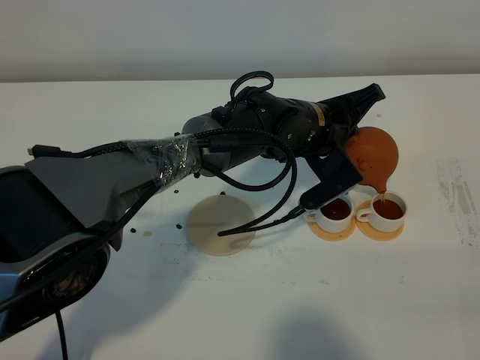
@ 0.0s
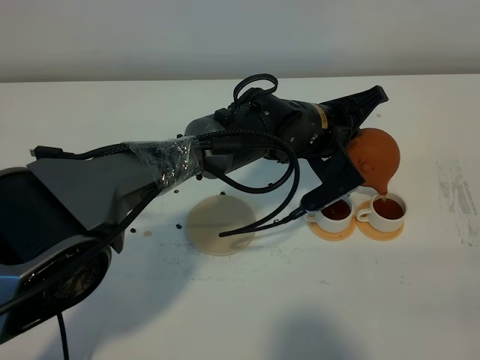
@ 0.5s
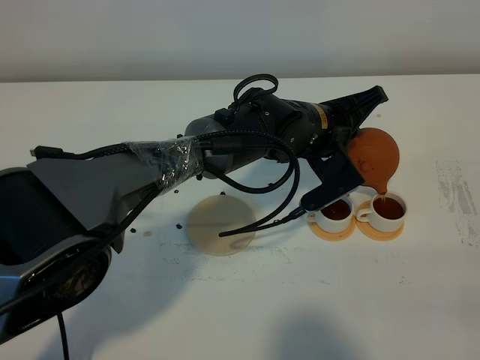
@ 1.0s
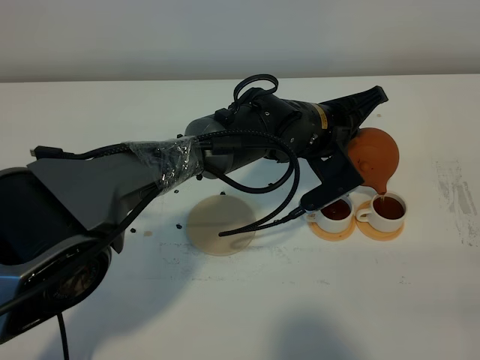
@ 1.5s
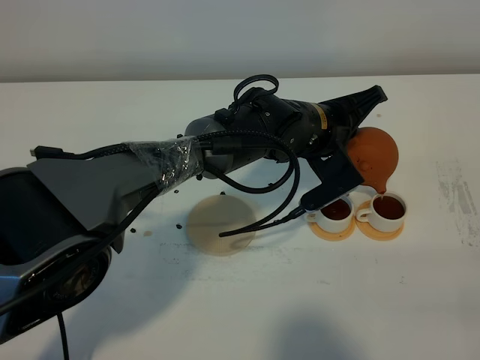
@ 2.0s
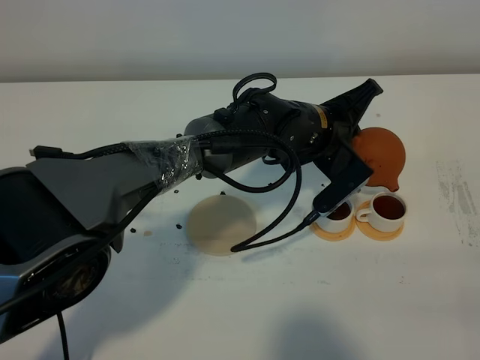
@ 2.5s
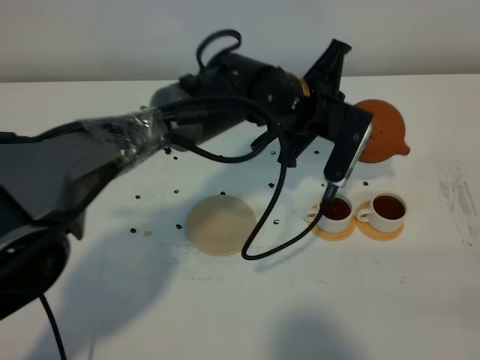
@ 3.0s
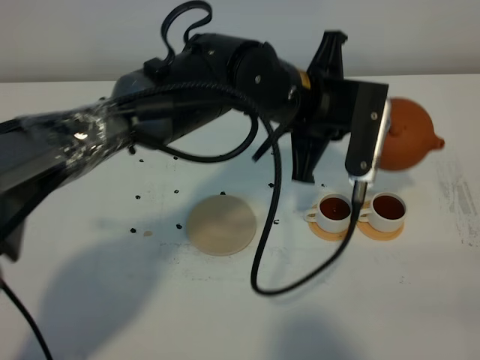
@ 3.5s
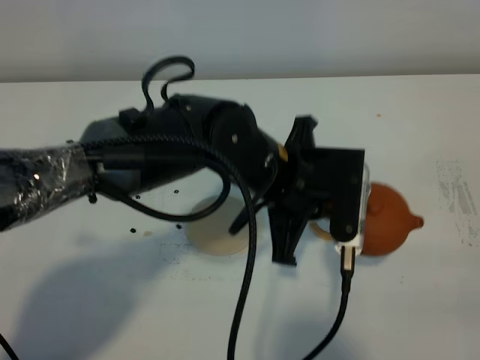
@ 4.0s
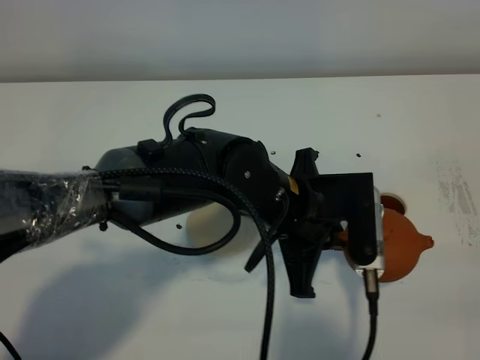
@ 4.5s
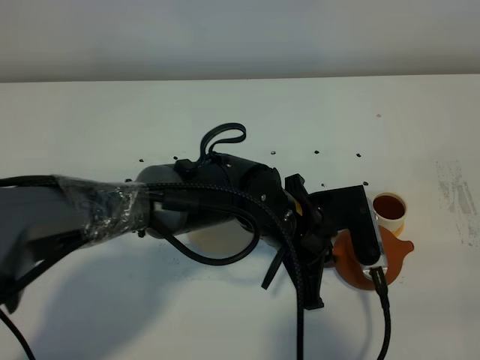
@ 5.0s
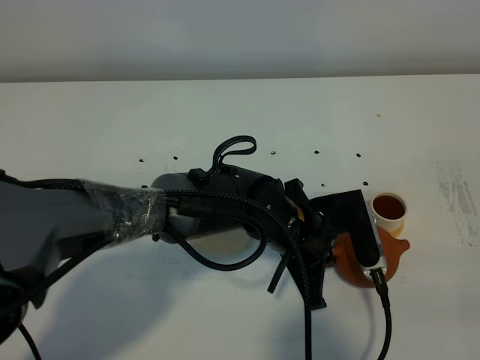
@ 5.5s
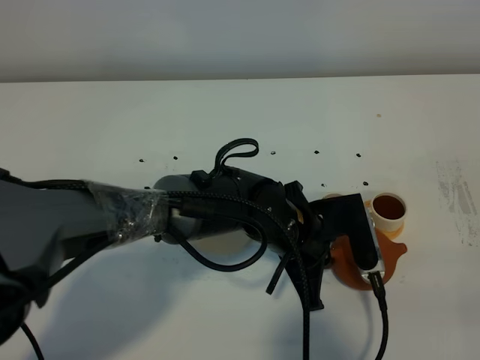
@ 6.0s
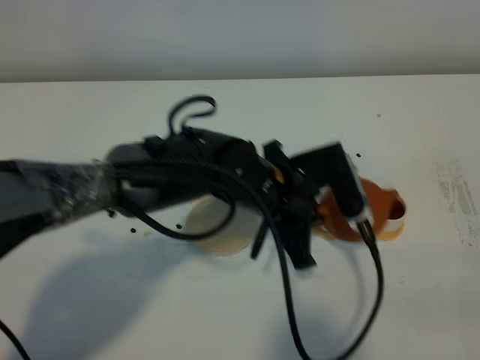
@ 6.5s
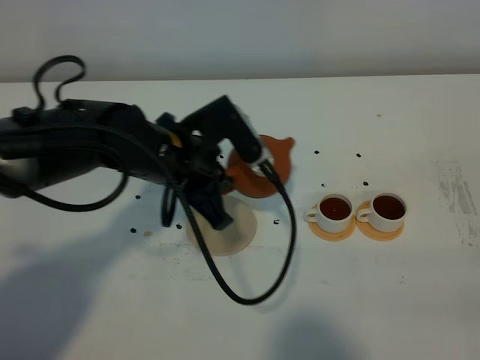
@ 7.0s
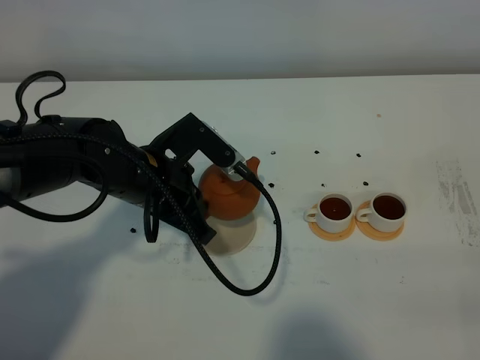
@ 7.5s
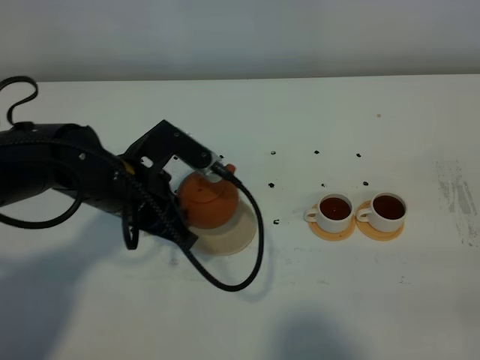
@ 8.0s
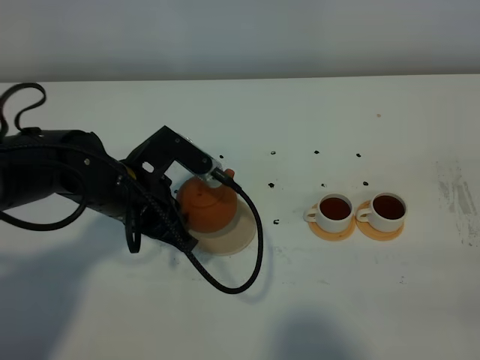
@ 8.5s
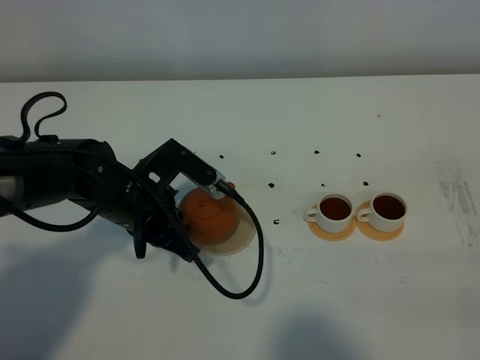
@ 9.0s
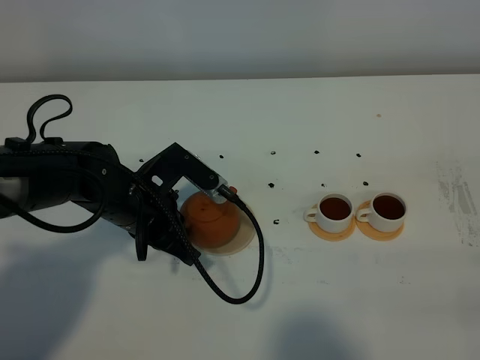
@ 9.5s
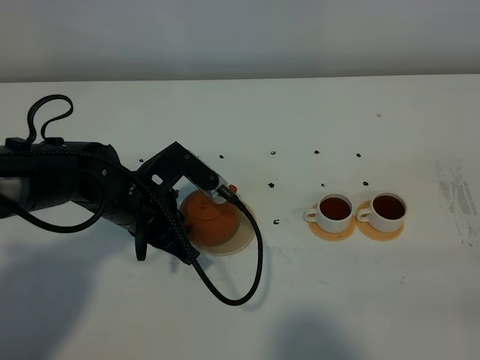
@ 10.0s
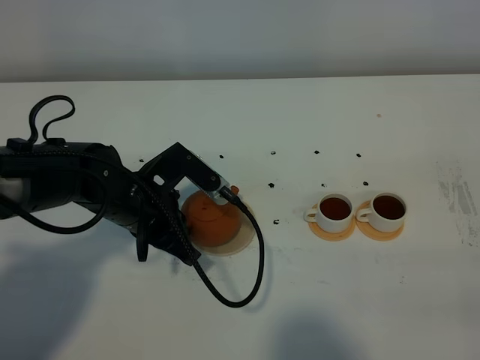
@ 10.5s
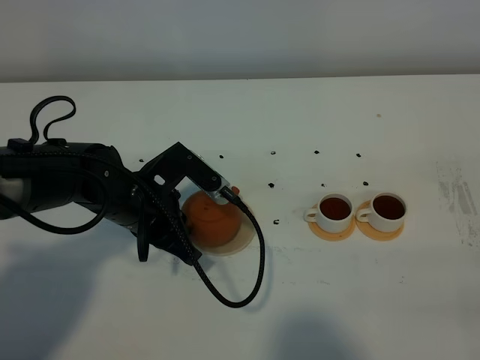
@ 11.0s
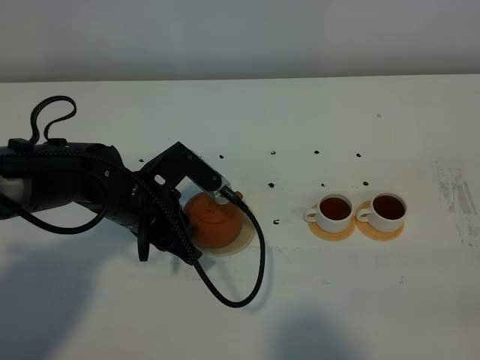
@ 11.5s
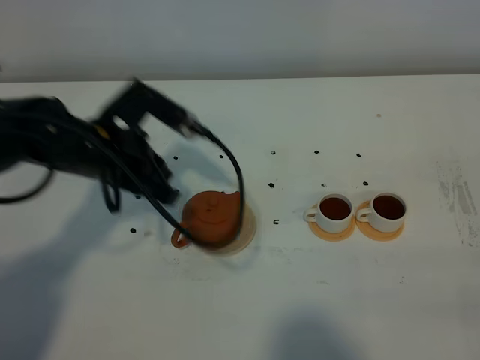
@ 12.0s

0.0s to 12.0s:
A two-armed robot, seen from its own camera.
Task of the whole recording: grasp the brown teapot and pour the tea into the two white teacups one by one, put the brown teapot back in its original place.
Step, 0.0s to 3.0s: Pour tea into the teacup with the left gripper.
0.0s to 2.0s: The two grippers keep their place.
2.0s to 4.0s: The left gripper moves backward and to the left, some 10 cm.
4.0s to 6.0s: The left gripper travels downward by some 10 cm.
6.0s to 8.0s: The left gripper moves to the left, some 20 cm.
8.0s to 10.0s: The grippers make only small movements.
10.0s to 12.0s: The left gripper goes approximately 10 cm upward, and opens up.

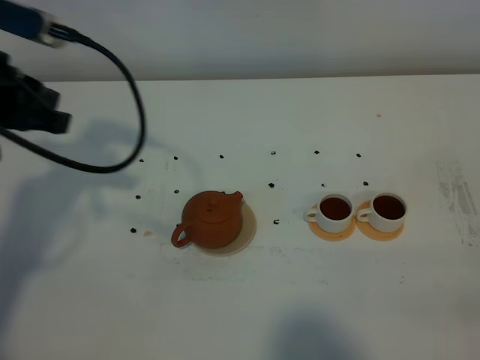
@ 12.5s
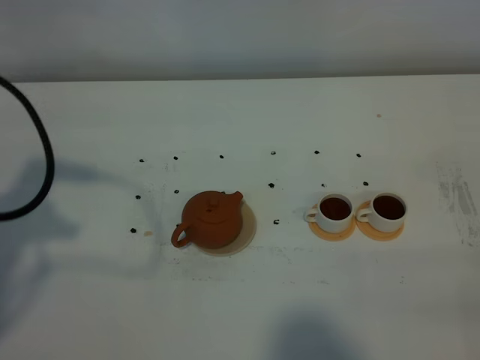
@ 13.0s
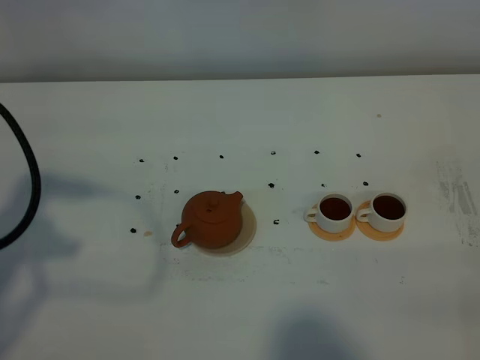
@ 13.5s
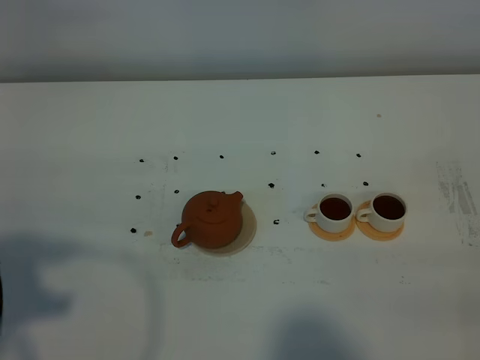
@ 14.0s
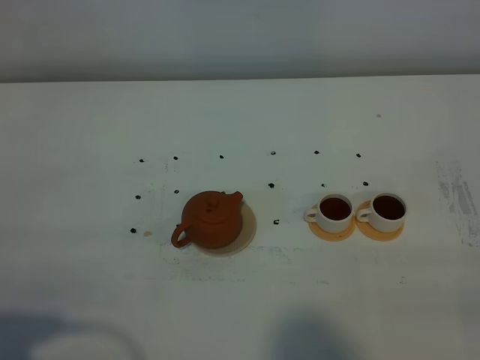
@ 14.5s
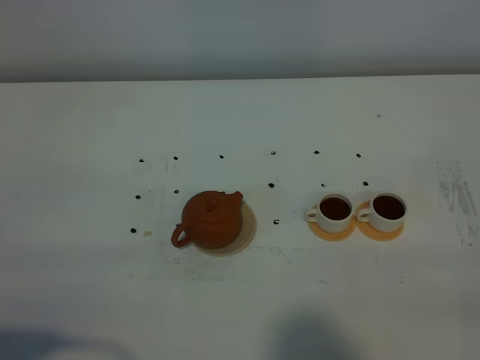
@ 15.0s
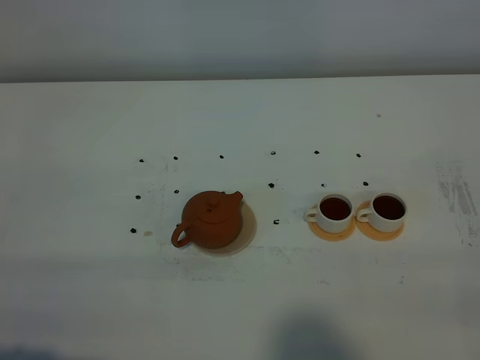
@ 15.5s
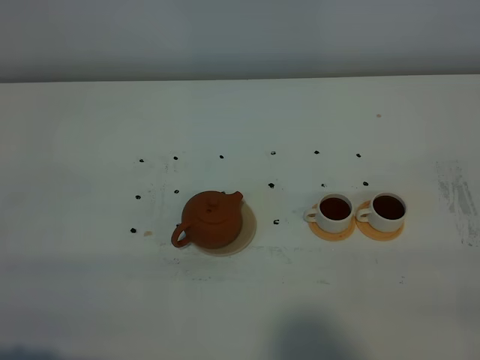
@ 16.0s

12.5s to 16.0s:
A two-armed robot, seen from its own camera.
Task of the whole recording: grasp the brown teapot and pour the tea into the two white teacups one by one, put the brown teapot back in its original place.
12.5s to 14.5s: The left gripper travels backward by roughly 25 cm.
